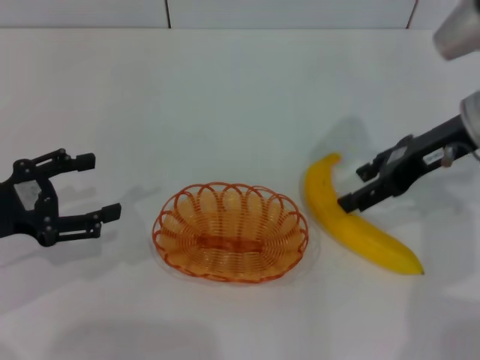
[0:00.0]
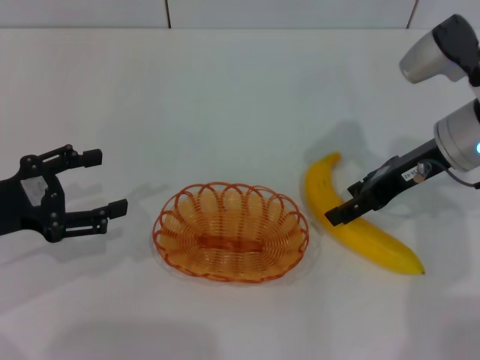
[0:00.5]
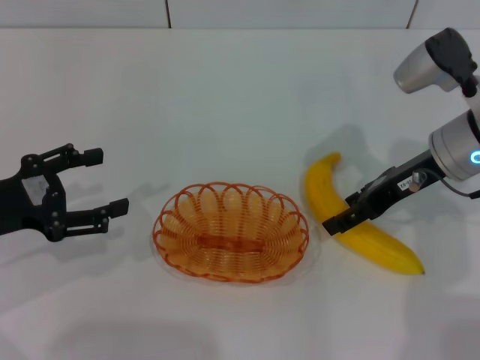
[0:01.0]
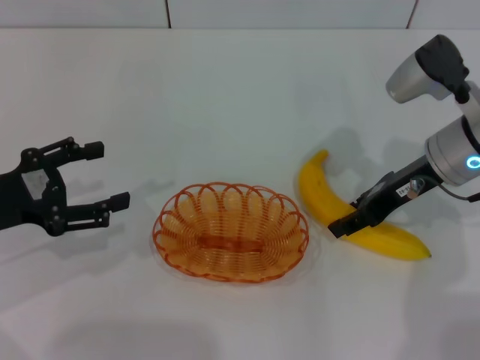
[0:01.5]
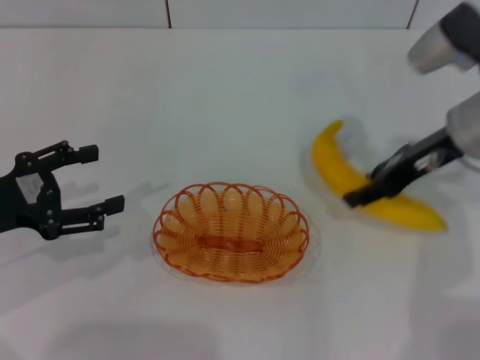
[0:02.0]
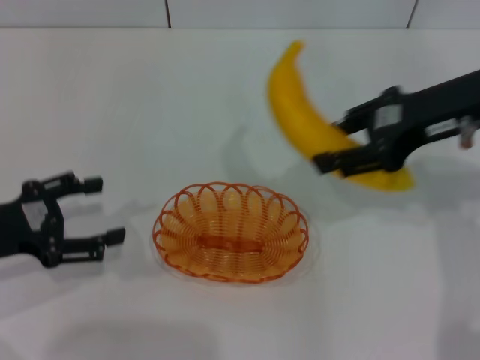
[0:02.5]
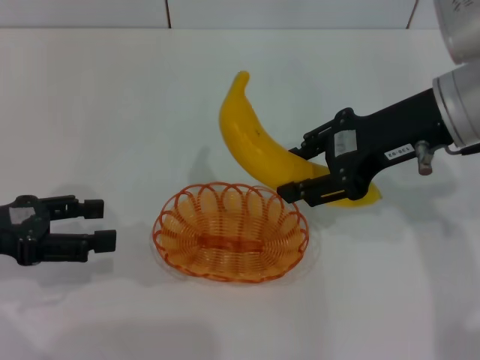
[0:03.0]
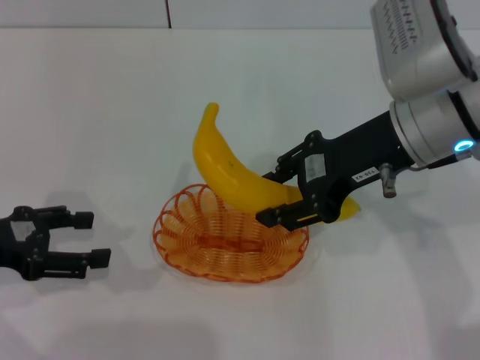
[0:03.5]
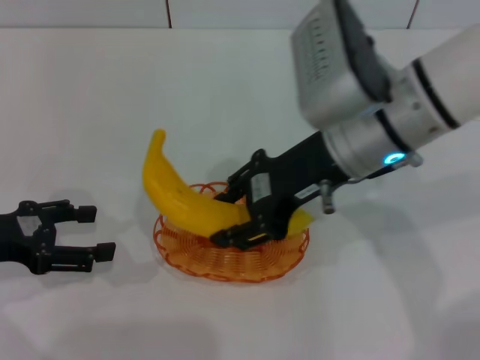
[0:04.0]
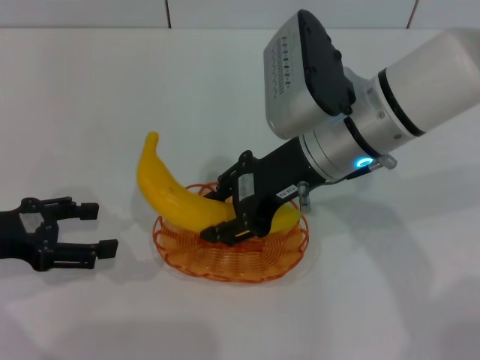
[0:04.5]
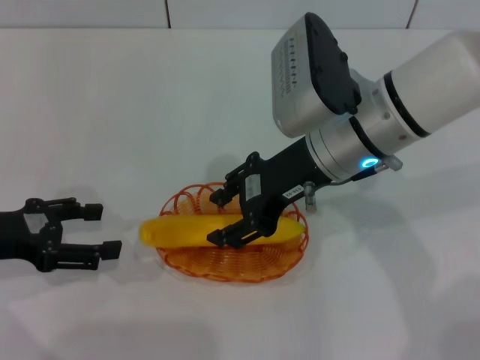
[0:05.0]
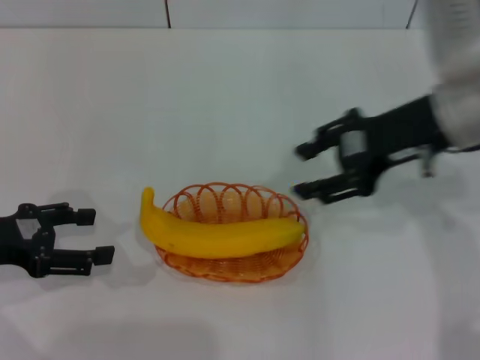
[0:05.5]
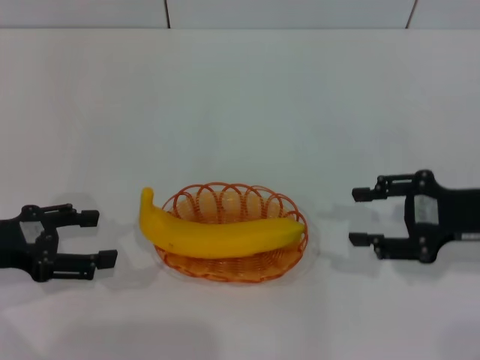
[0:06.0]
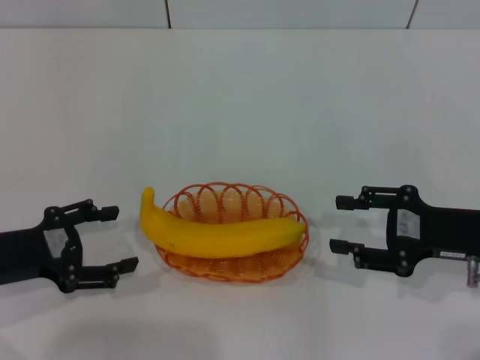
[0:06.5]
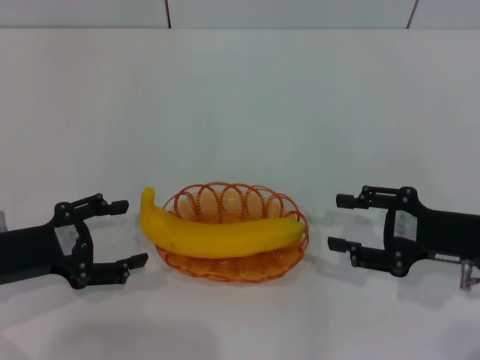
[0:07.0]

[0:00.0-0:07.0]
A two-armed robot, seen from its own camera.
Step, 0:02.5 to 0:05.0: Place the banana into the basket with the right gripper.
0:00.0 to 0:02.0: The right gripper closes.
0:02.0 to 0:03.5: The right gripper heads to the left and upward, covering about 10 cm.
0:03.5 to 0:05.0: The right gripper goes roughly 5 cm to the left.
0:05.0 to 0:07.0: The right gripper heads to the right, downward and backward, covering some 25 cm.
